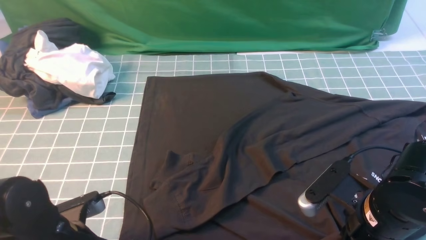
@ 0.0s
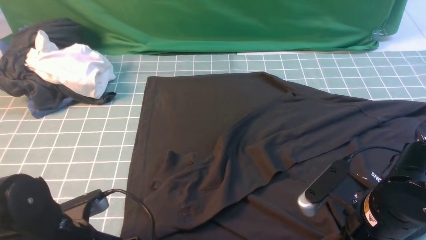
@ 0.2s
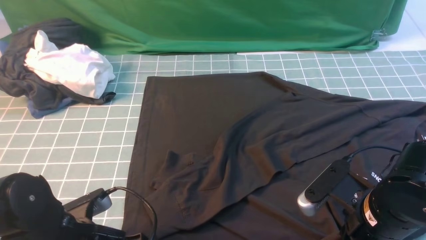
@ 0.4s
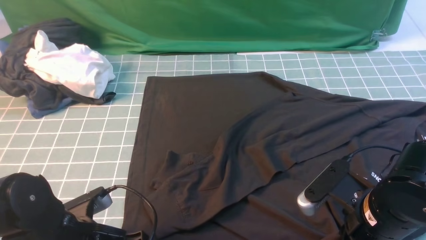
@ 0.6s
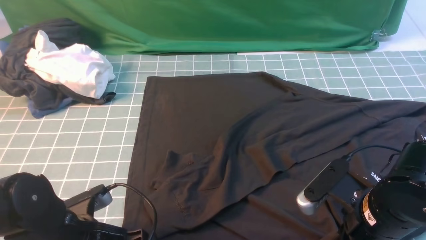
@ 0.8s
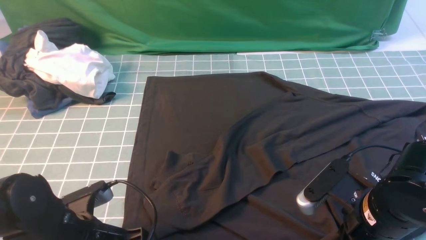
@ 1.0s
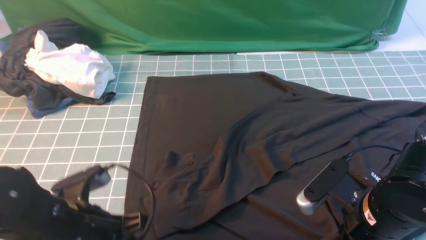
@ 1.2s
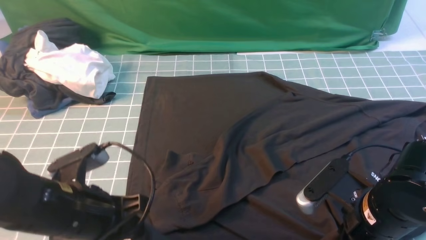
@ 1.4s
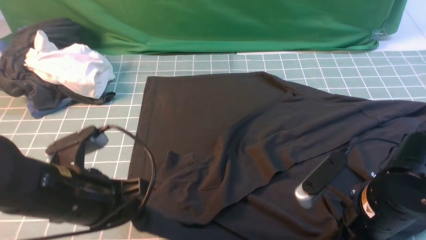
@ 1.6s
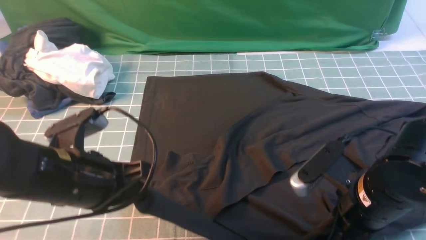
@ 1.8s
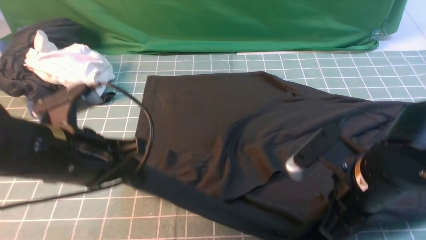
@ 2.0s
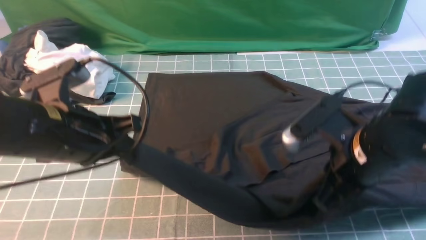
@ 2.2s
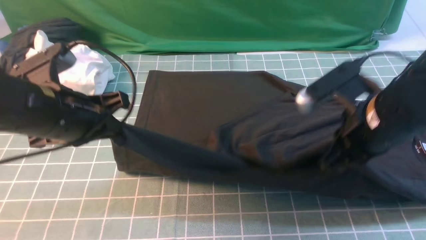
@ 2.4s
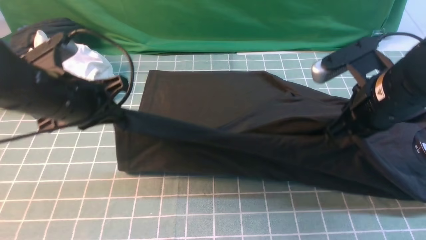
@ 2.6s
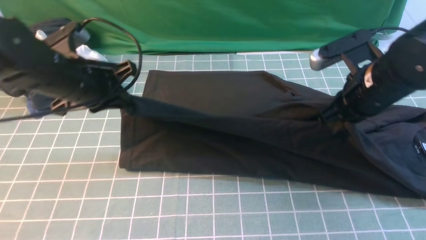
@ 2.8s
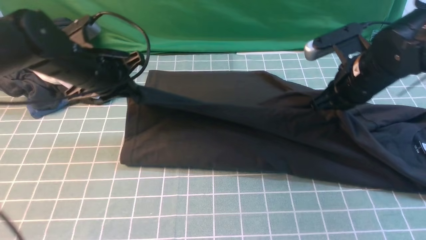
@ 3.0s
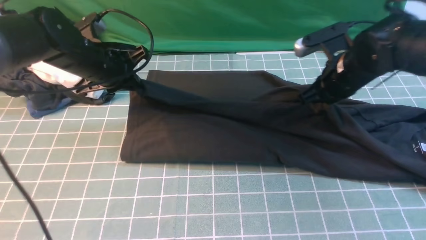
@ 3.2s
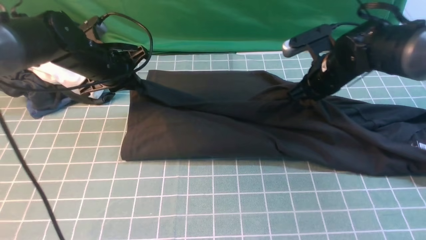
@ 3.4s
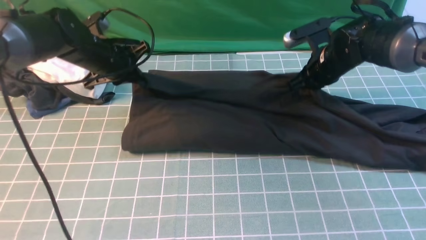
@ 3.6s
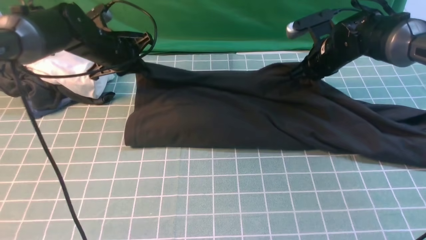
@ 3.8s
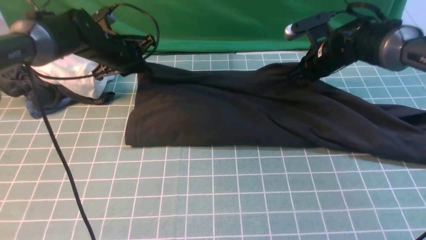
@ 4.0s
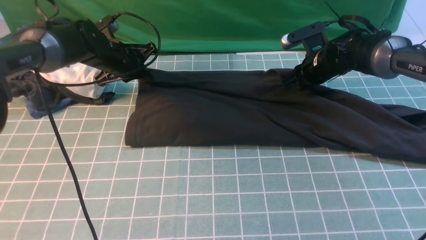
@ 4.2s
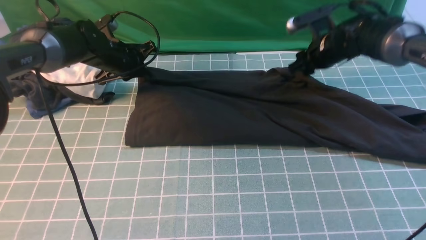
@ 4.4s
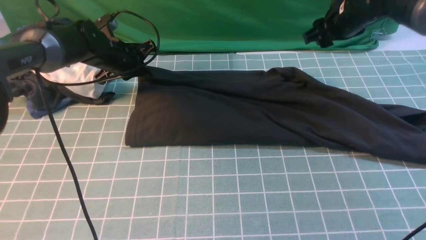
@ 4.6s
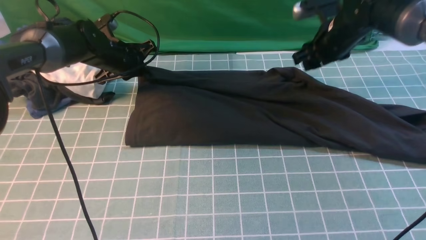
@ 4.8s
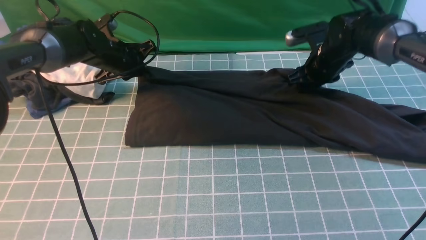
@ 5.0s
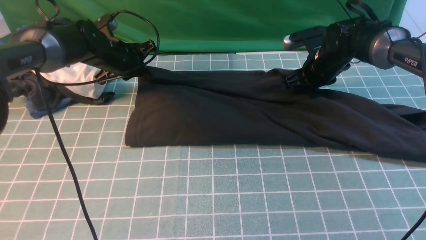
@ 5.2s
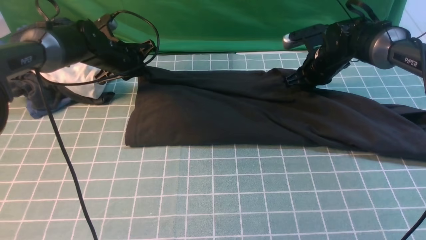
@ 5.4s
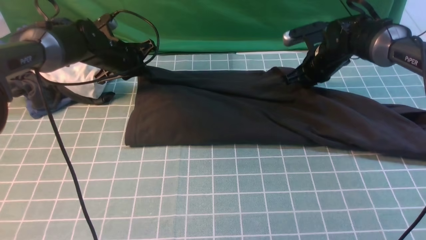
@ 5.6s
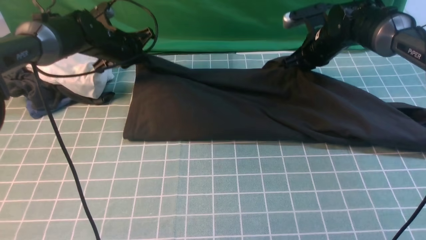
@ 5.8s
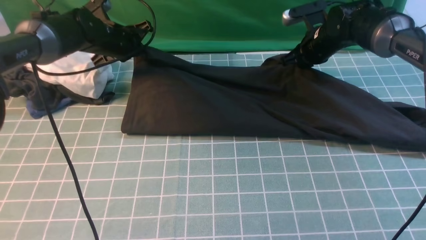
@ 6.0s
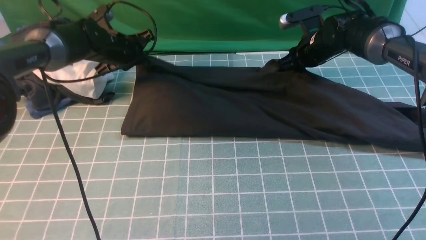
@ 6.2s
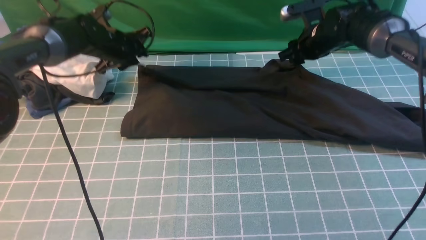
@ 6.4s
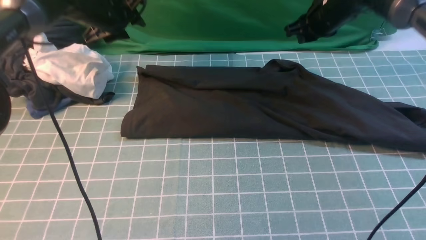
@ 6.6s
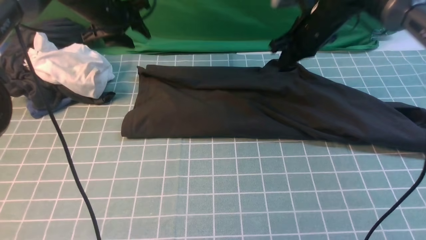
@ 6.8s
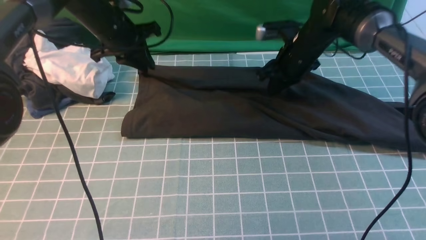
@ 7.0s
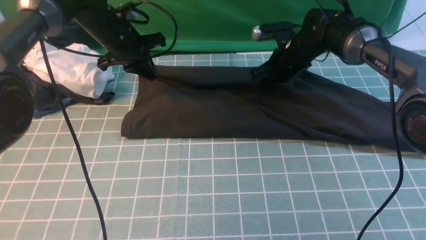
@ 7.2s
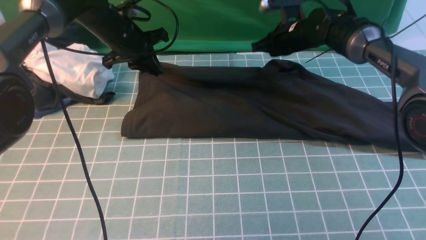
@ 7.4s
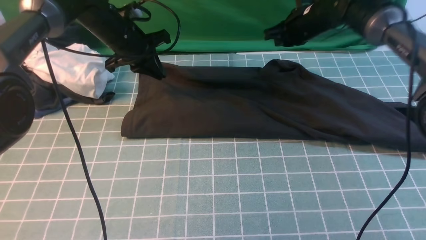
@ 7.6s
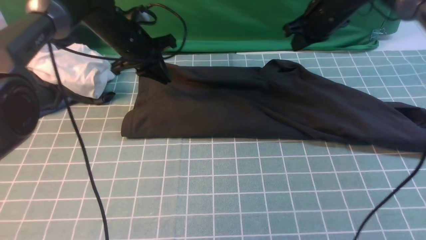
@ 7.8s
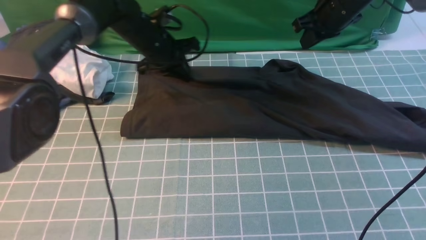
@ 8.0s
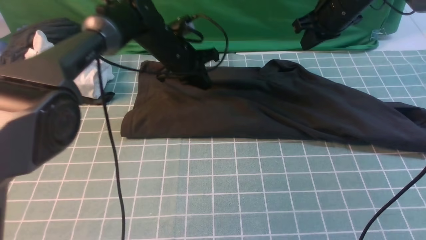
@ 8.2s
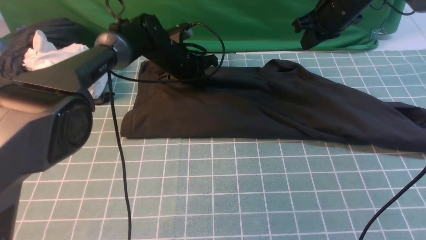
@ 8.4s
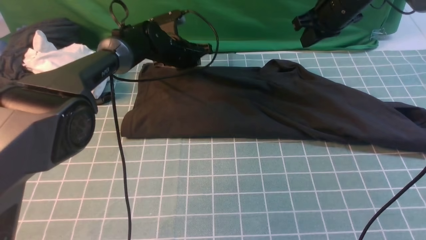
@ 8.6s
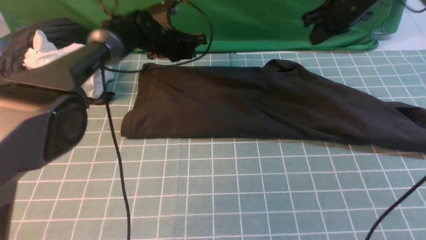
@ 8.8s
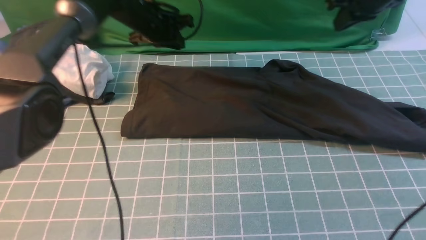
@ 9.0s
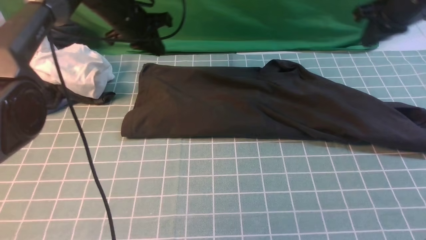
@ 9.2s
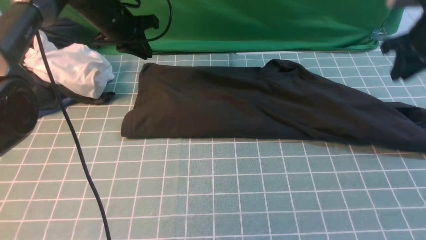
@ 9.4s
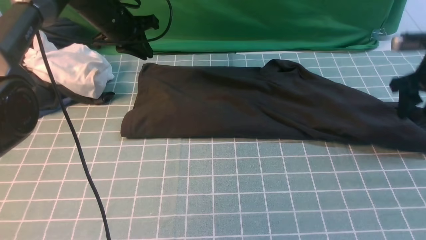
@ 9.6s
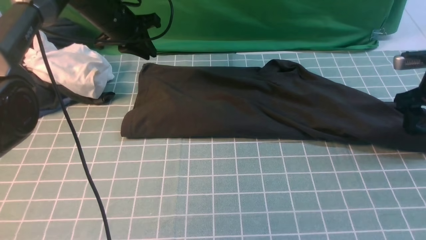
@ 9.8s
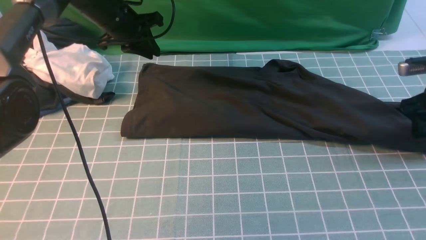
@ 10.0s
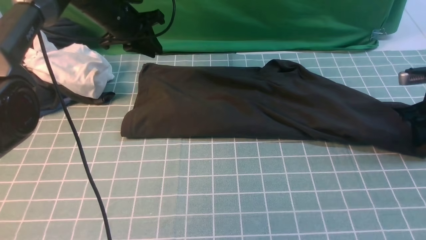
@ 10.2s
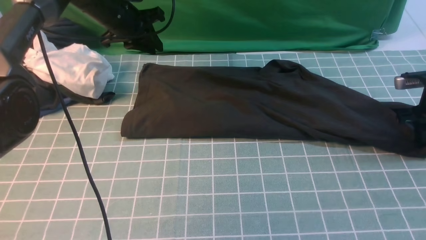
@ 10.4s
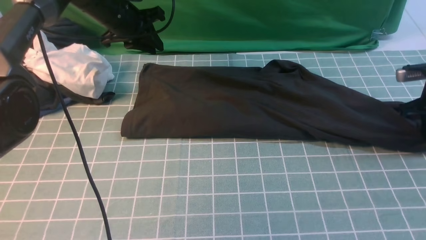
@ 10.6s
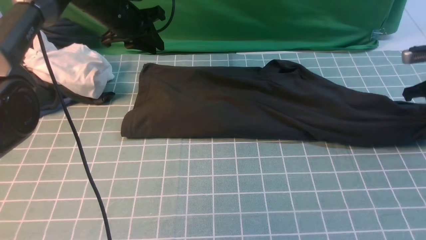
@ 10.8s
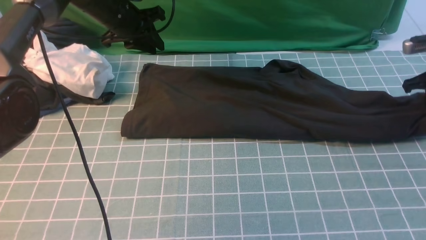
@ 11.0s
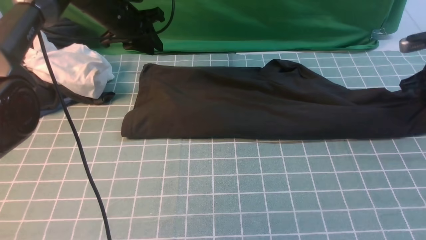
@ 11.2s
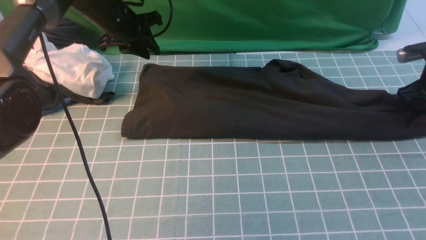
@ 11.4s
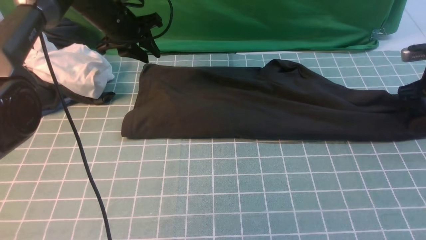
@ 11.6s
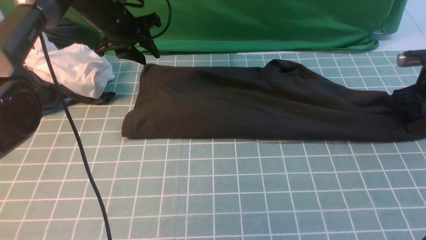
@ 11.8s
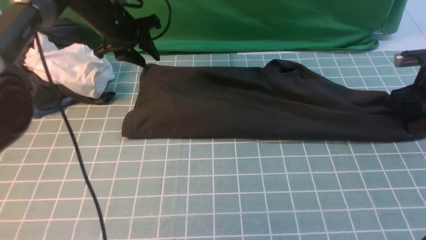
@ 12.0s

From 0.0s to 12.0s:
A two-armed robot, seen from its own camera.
Step, from 1.8s to 6.4s: use both arms to drag the lower edge of the fabric forward and fold it over the upper edge.
From 0.0s to 1.6s: The left gripper is displaced upward by about 5 cm, and closes its fingers.
From 1.6s to 3.0s: The two grippers go roughly 20 cm forward.
From 3.0s to 4.4s: The right gripper goes roughly 15 cm forward, and opens. The left gripper heads forward and downward, covering some 15 cm.
From 4.4s to 6.0s: The right gripper closes its fingers.
From 6.0s to 7.6s: The left gripper opens, then closes again; the right gripper swings up and down, about 5 cm each way, with 2 reversals.
From 7.6s to 9.0s: The right gripper goes approximately 15 cm to the right, upward and backward; the left gripper travels to the right and back again, roughly 10 cm each way.
From 9.0s to 10.4s: The right gripper is displaced downward and to the right by about 20 cm, and opens.
From 10.4s to 12.0s: The right gripper closes, then reopens.

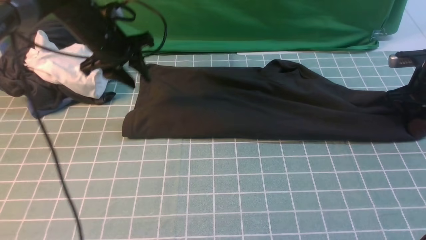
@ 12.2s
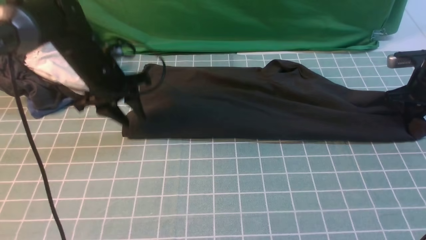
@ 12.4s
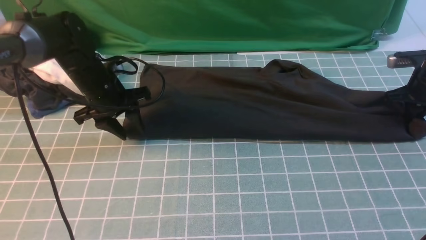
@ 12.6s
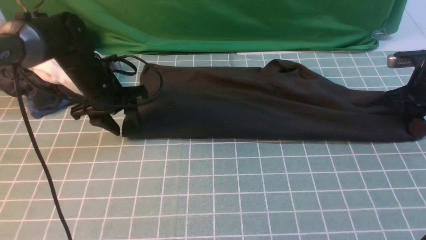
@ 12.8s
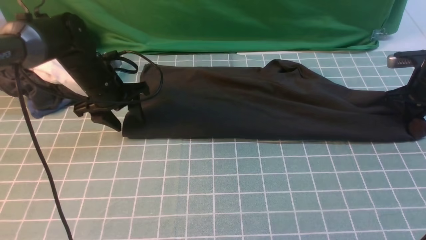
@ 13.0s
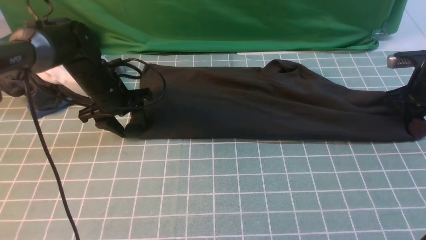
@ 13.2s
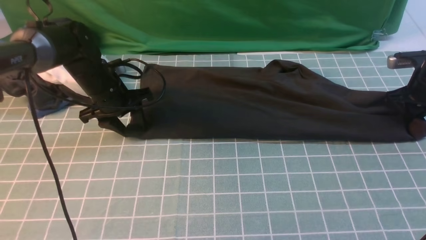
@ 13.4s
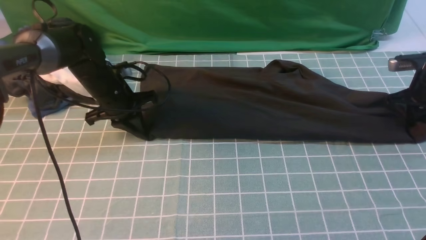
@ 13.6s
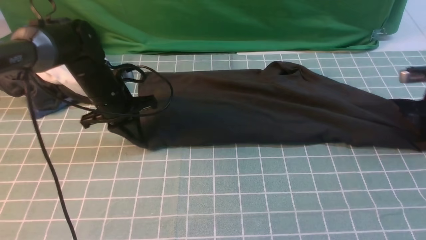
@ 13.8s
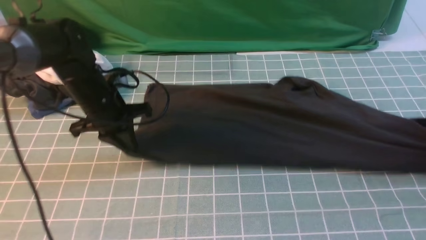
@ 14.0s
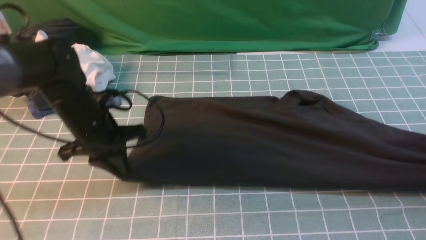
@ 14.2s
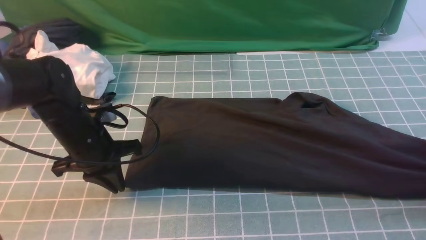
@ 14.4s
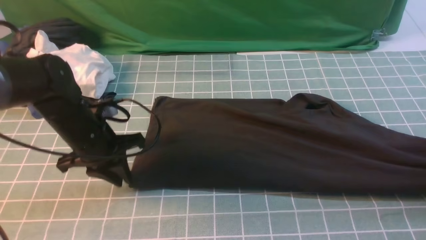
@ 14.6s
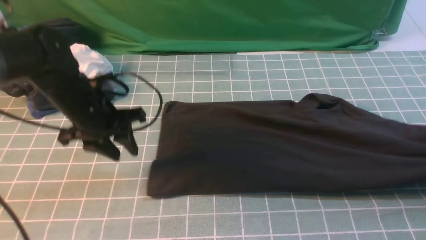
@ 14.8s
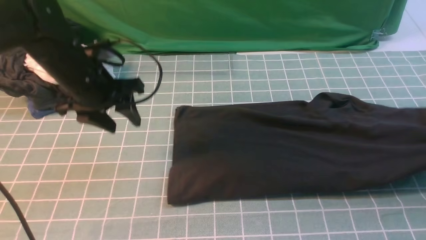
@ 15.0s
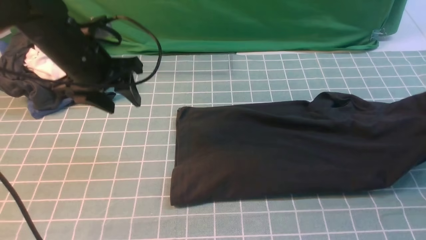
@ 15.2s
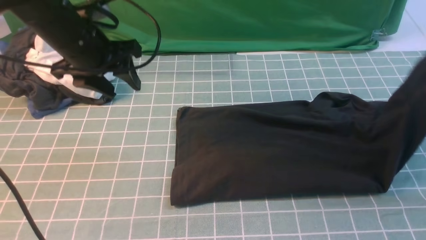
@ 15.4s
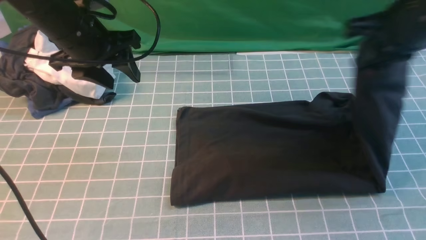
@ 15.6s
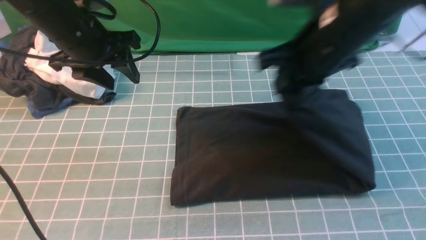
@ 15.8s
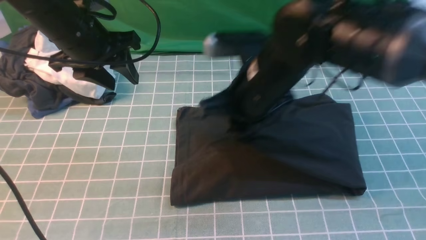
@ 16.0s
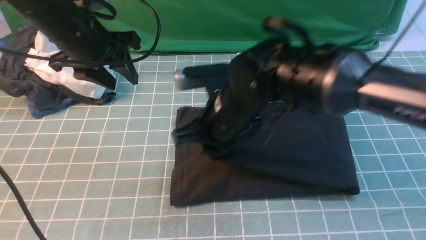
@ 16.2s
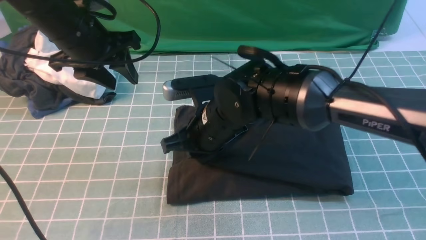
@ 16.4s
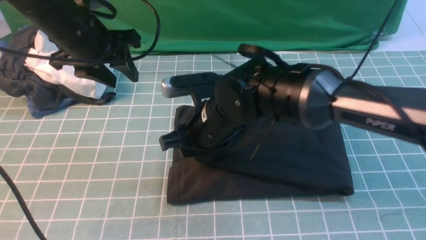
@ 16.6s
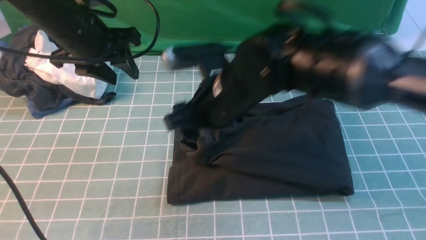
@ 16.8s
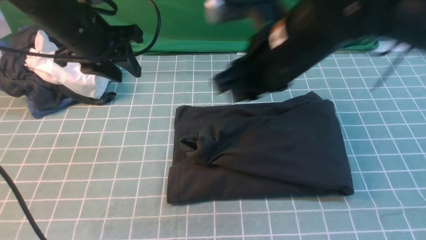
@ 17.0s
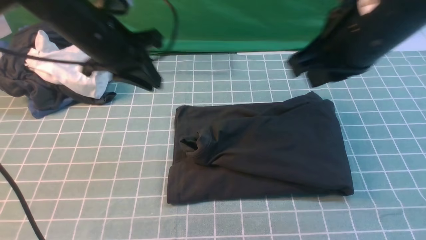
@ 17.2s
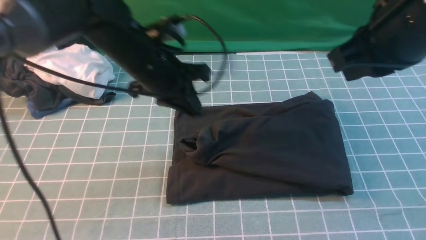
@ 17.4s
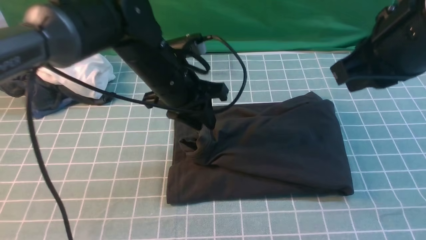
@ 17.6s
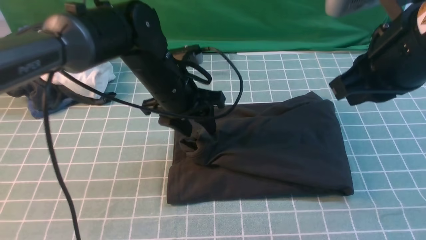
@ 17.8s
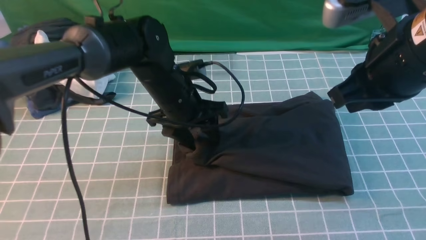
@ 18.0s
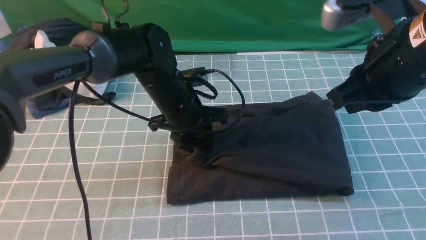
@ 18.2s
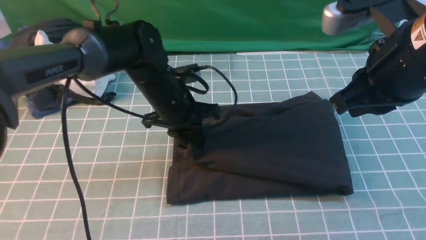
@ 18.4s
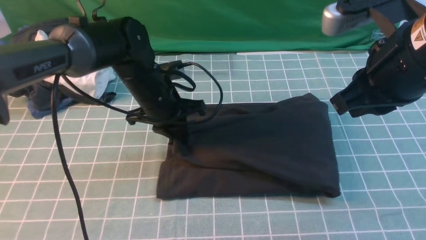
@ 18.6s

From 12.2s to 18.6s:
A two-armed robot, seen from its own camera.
Step, from 12.2s to 14.6s: use the right arm to clamp the right edge of the fabric.
Step, from 14.8s to 16.8s: use the right arm to drag the right edge of the fabric to the left and folds it over the left edge.
From 12.2s to 13.8s: The right gripper ends up about 5 cm from where it was, while the left gripper is displaced downward and backward by about 10 cm, and closes its fingers.
From 13.8s to 15.4s: The left gripper travels upward by roughly 15 cm, and opens up. Meanwhile the right gripper shifts about 25 cm upward and to the left.
From 15.4s to 17.0s: The right gripper is displaced to the left by about 20 cm. The left gripper closes.
From 17.0s to 18.6s: The left gripper shifts approximately 15 cm downward and to the right. The right gripper goes some 10 cm to the right, and closes up.
